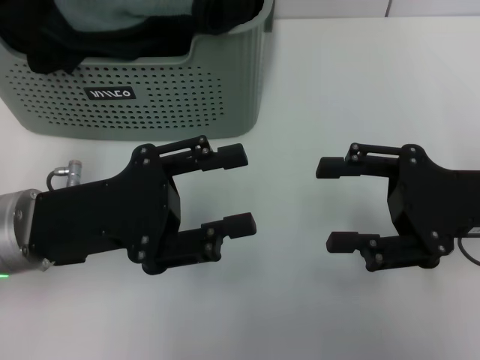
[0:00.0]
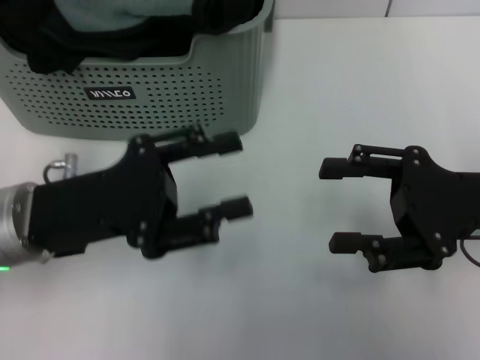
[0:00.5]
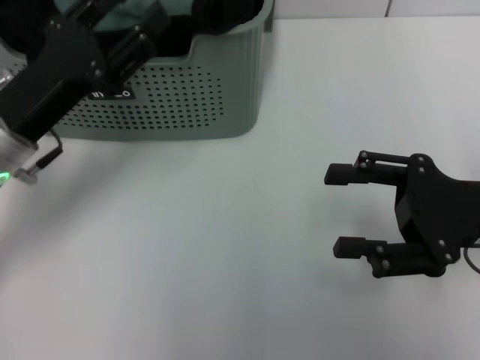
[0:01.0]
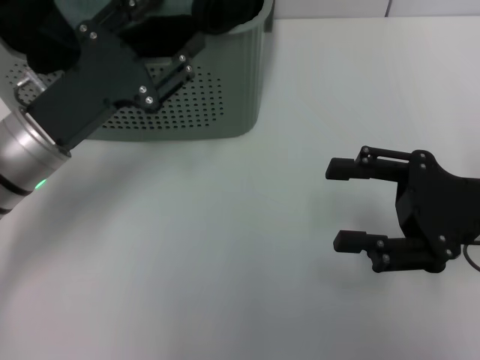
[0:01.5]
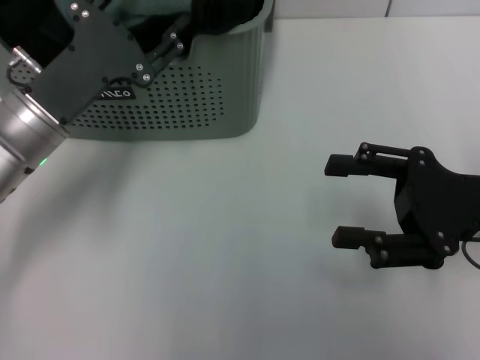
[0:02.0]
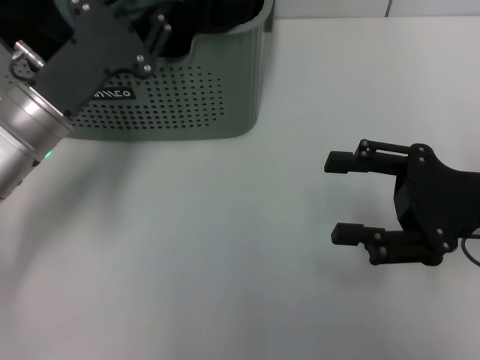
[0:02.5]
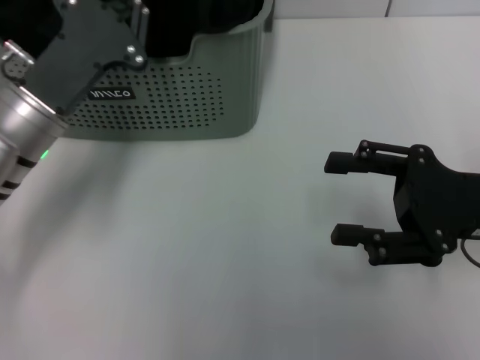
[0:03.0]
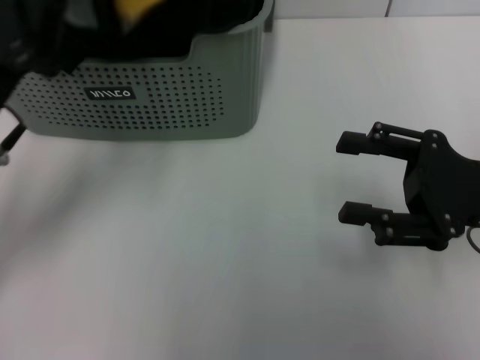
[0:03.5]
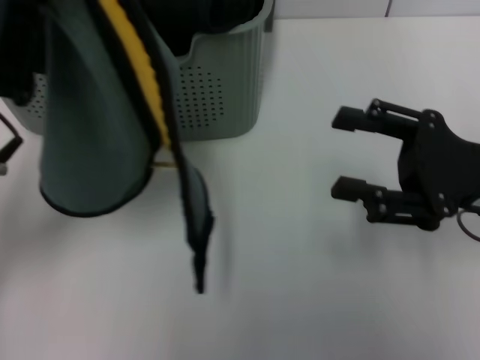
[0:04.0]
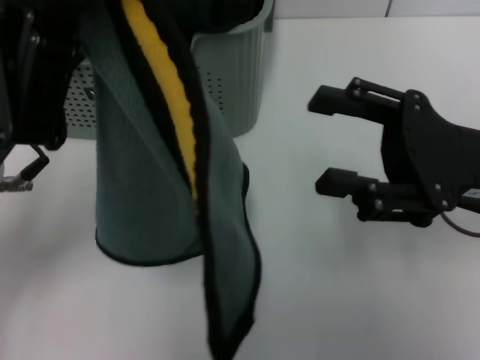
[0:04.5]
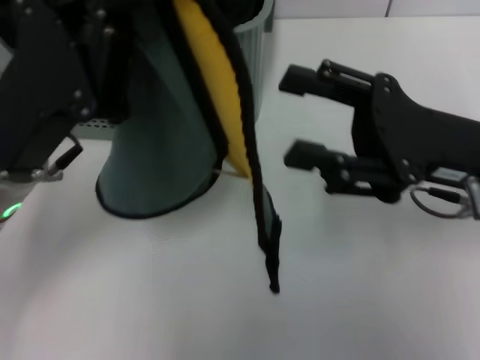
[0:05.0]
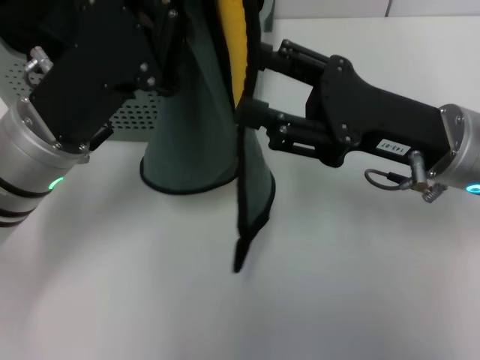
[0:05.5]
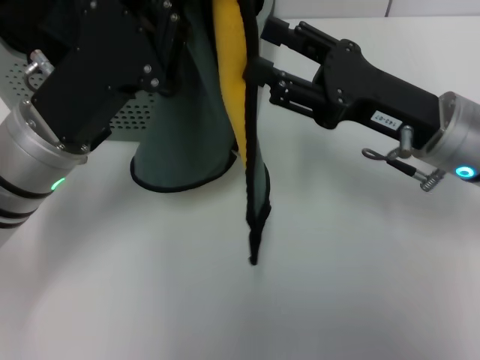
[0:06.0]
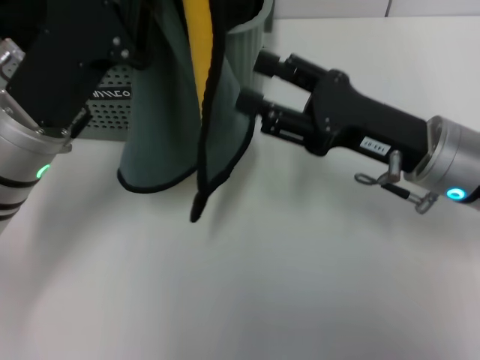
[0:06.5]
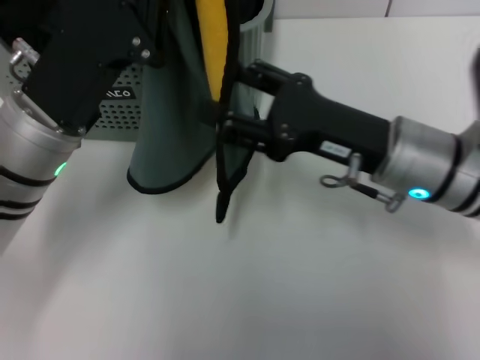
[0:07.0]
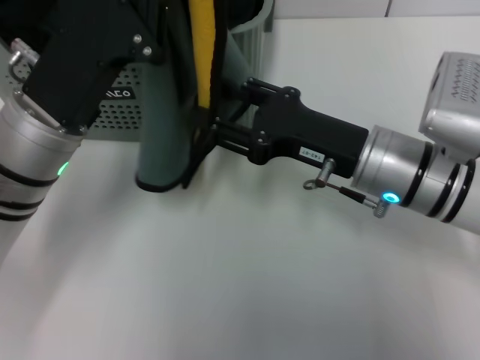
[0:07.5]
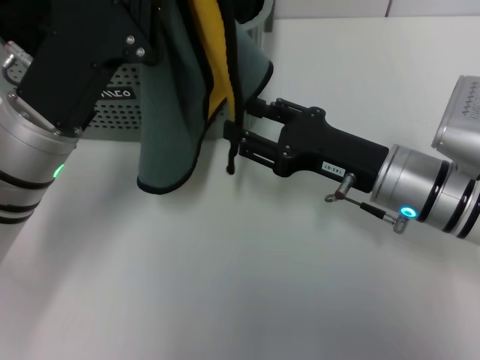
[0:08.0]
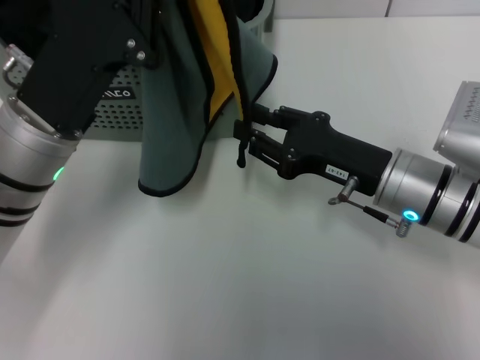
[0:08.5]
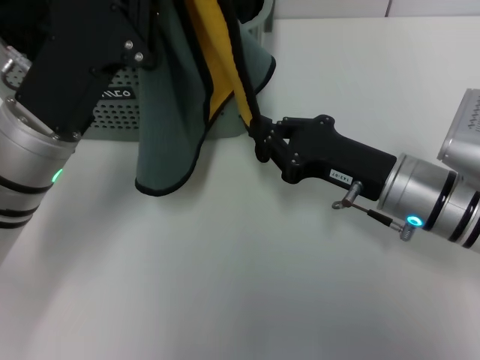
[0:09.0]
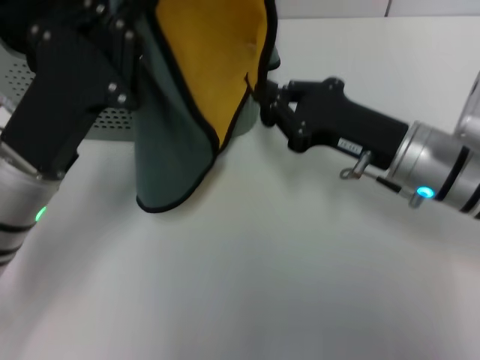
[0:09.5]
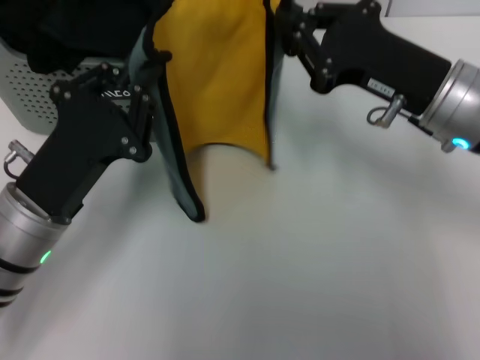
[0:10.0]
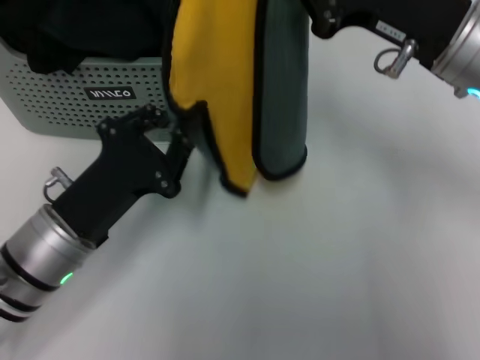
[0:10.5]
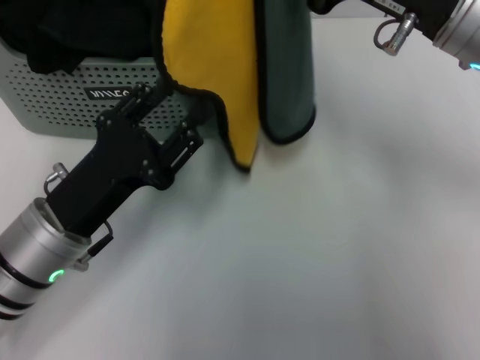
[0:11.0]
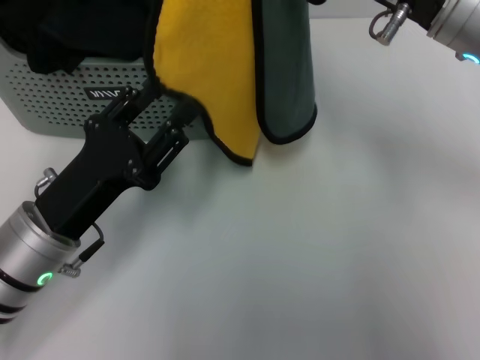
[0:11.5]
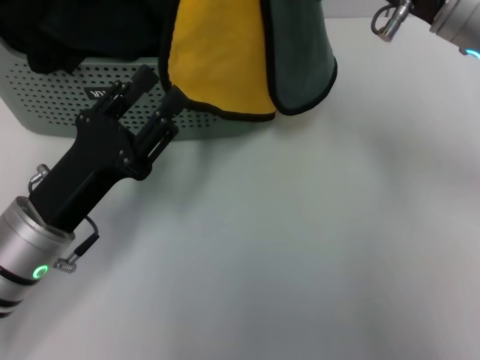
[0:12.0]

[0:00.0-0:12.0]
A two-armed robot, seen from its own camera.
Task of the whole recording: pick up the towel from the storage box and lay it flat on the table.
Step, 0:00.0 to 0:03.0: Pick up a towel with the left gripper.
Step, 0:03.5 to 0:08.5: Spread the towel flat with the left gripper.
0:00.0 to 0:02.0: The left gripper goes about 5 cm forward.
0:02.0 to 0:04.0: The left gripper moves upward and backward, some 10 cm, and closes up.
0:04.0 to 0:06.0: The left gripper ends up roughly 5 cm from where it was, while the right gripper travels to the left by approximately 5 cm.
0:06.0 to 0:08.0: The right gripper shifts by about 5 cm.
0:08.0 to 0:10.0: The right gripper is displaced upward by some 5 cm, and closes its fingers. Meanwhile the left gripper goes roughly 5 cm downward.
0:10.0 to 0:12.0: The left gripper opens its fingers. The right gripper shifts approximately 5 cm upward.

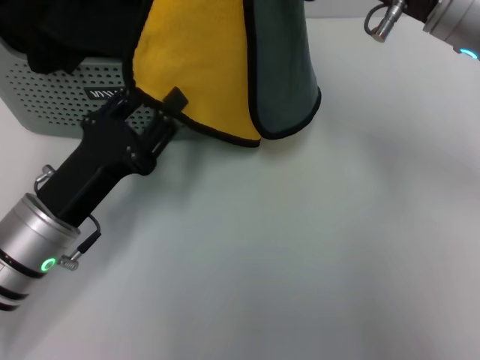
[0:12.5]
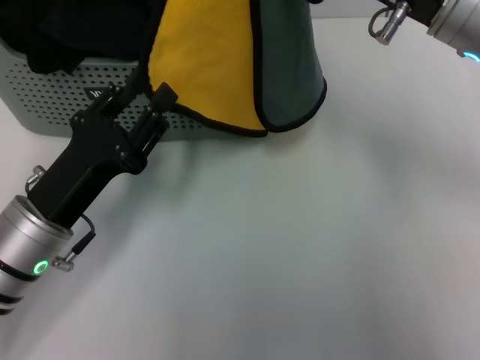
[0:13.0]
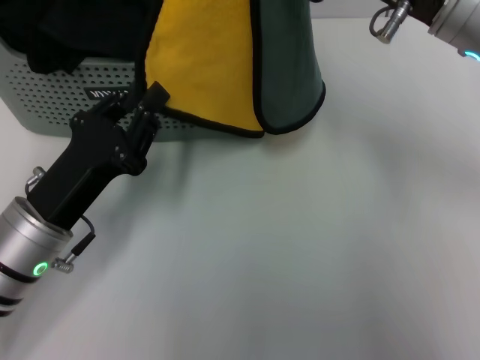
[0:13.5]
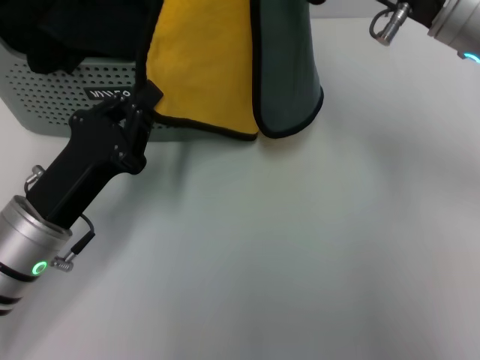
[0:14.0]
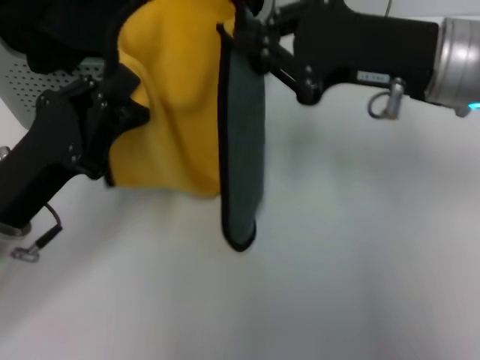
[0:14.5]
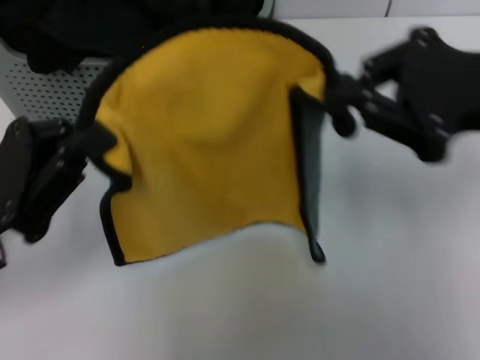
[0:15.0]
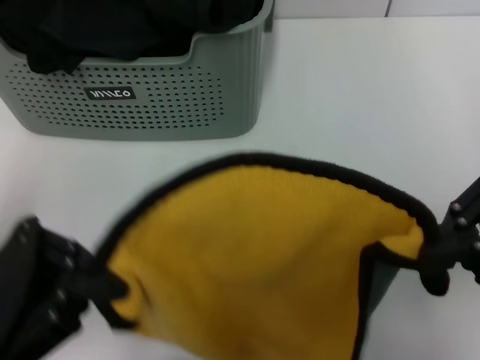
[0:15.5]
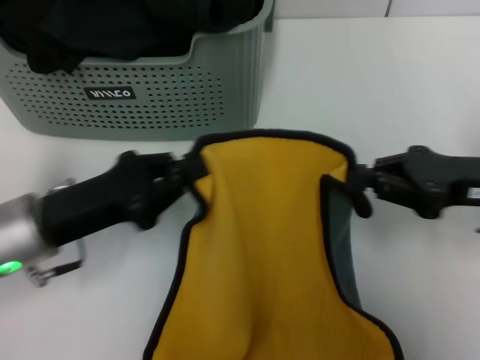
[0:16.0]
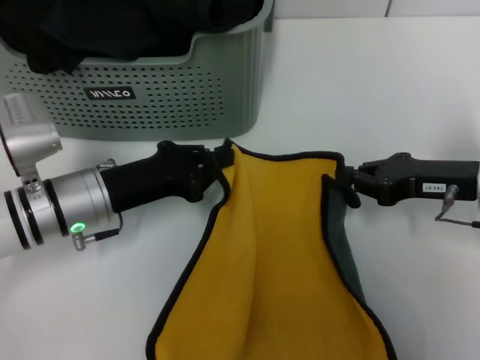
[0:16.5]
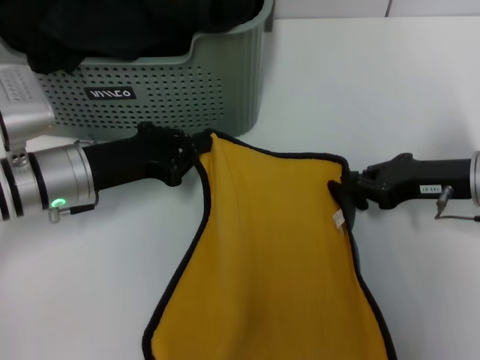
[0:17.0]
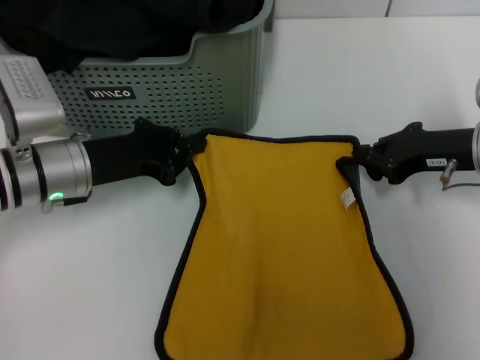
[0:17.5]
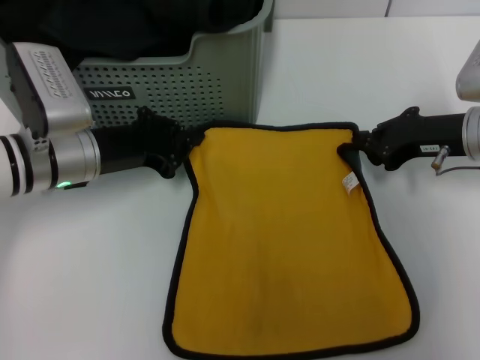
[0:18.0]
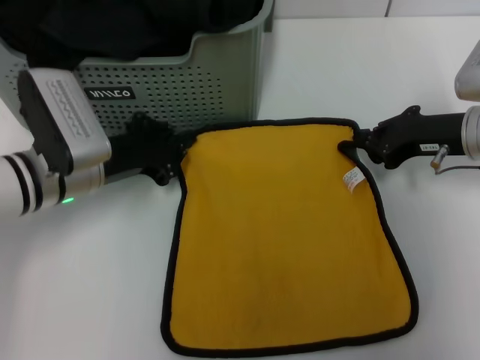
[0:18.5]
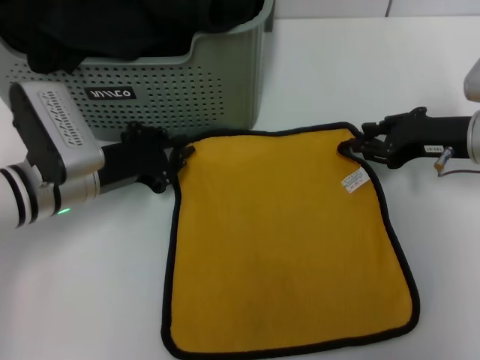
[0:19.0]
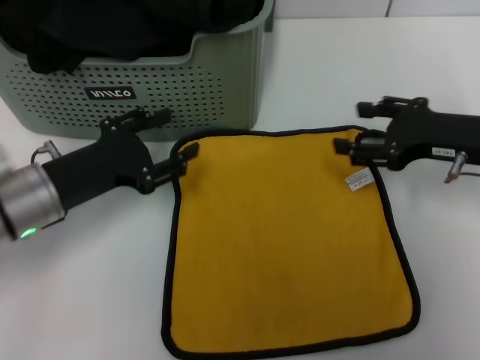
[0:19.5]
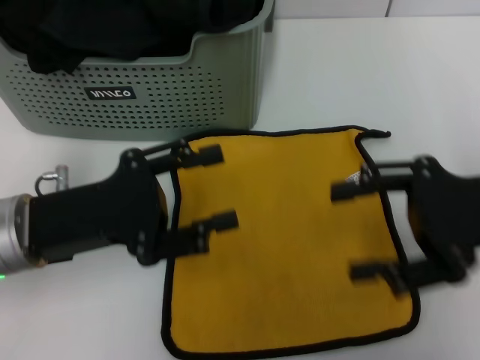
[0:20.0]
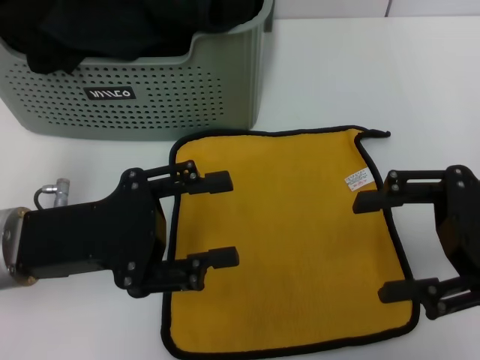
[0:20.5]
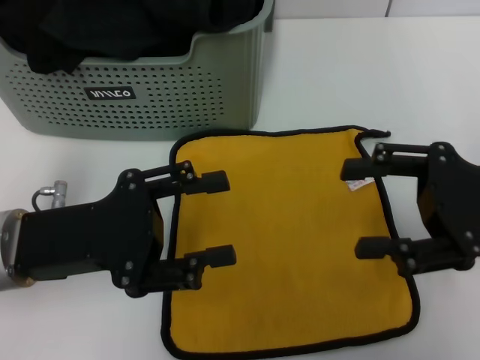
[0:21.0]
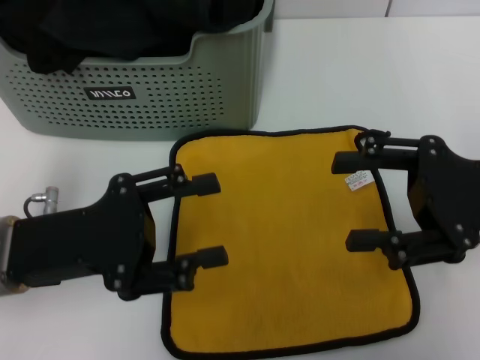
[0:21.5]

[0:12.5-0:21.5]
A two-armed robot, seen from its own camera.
Task of the whole recording: pick up the towel from the storage box and lay it flat on the table.
Step, 0:12.5 to 0:19.0: Spread the towel flat with the right gripper.
0:12.5 to 0:14.5: The left gripper closes up.
0:14.5 to 0:17.0: The left gripper heads forward, covering roughly 10 cm. Meanwhile the right gripper heads downward and to the right, covering roughly 15 cm.
0:17.0 to 0:19.5: The right gripper opens its fingers. The left gripper opens.
0:19.5 to 0:21.5: The two grippers go about 5 cm backward.
